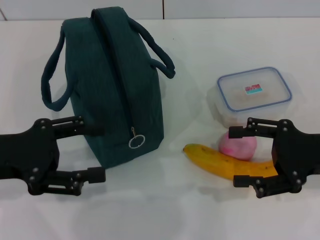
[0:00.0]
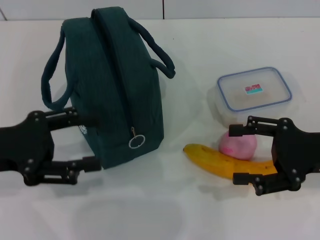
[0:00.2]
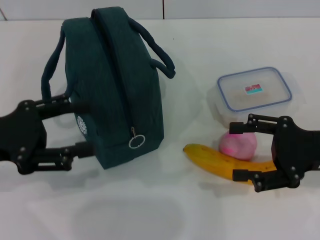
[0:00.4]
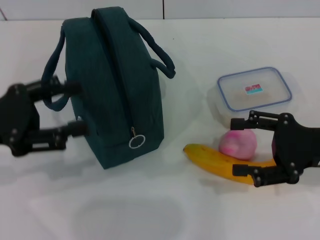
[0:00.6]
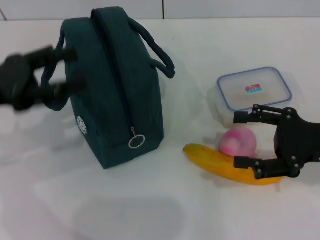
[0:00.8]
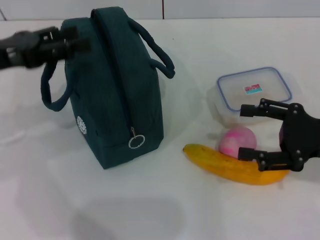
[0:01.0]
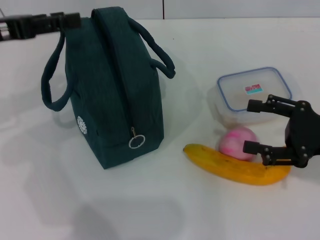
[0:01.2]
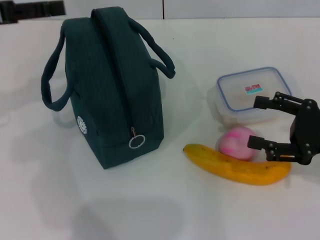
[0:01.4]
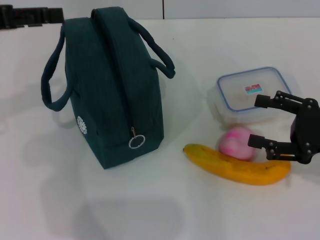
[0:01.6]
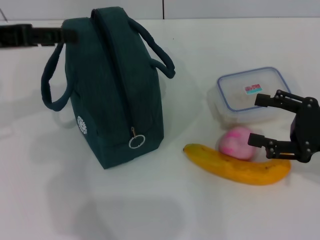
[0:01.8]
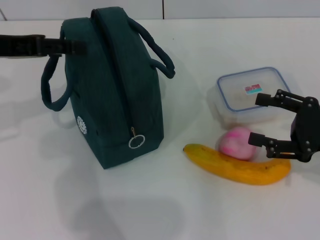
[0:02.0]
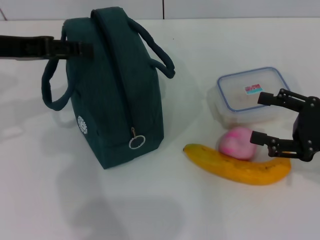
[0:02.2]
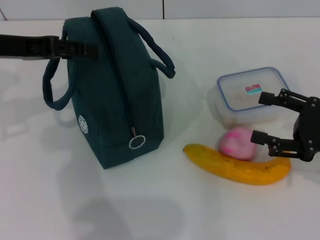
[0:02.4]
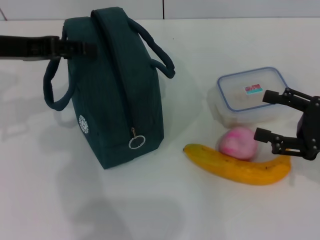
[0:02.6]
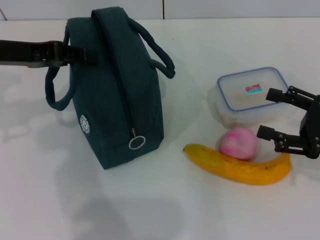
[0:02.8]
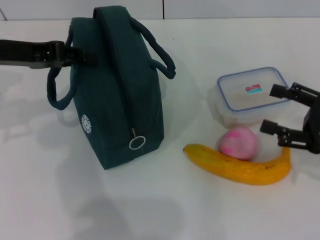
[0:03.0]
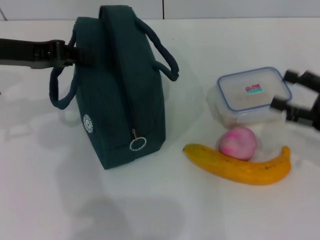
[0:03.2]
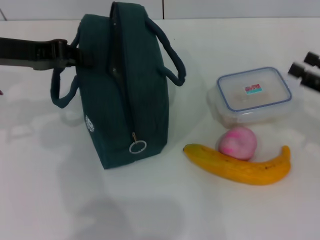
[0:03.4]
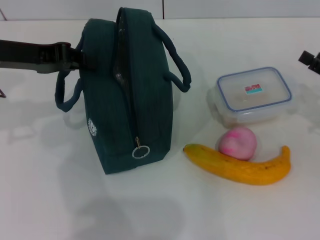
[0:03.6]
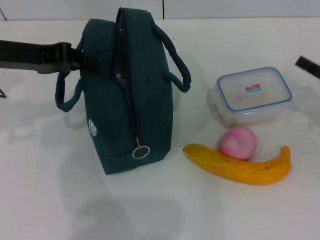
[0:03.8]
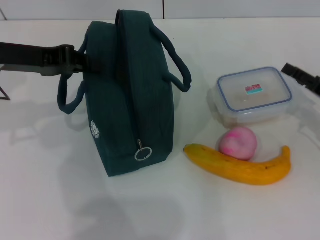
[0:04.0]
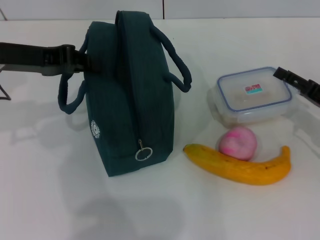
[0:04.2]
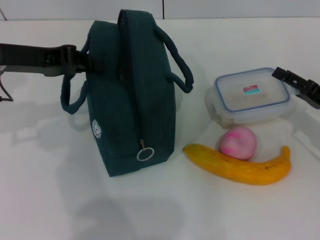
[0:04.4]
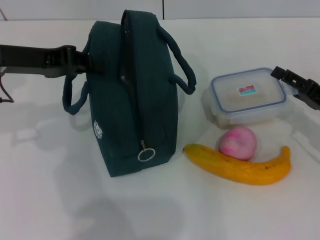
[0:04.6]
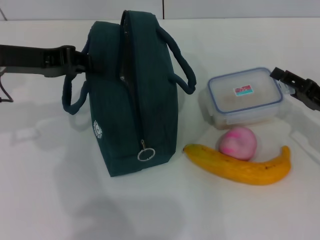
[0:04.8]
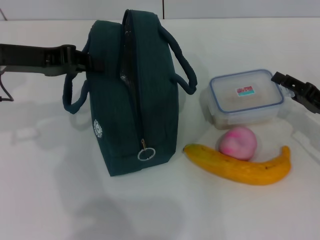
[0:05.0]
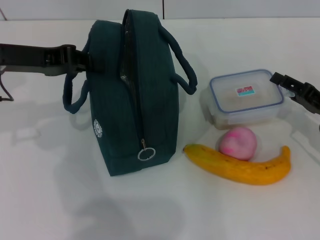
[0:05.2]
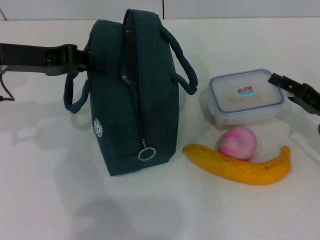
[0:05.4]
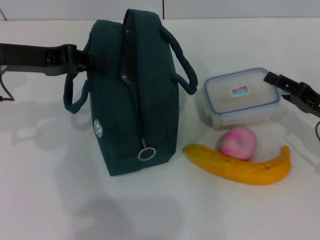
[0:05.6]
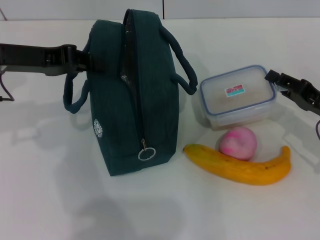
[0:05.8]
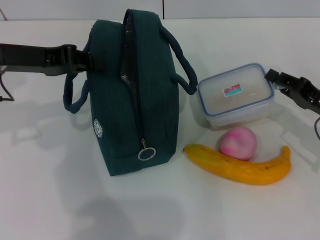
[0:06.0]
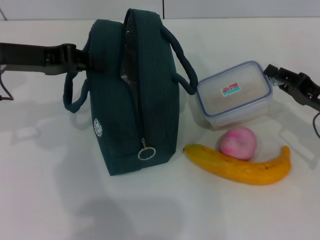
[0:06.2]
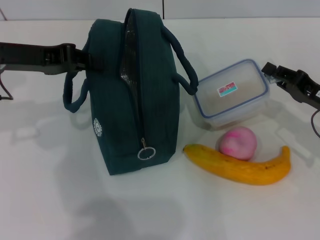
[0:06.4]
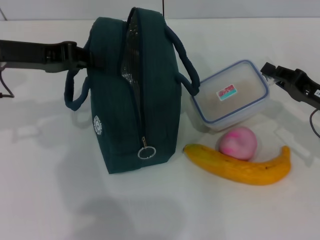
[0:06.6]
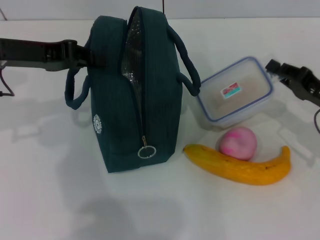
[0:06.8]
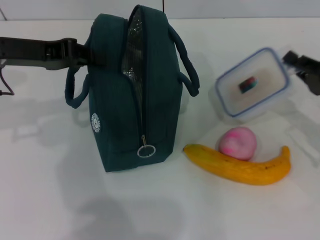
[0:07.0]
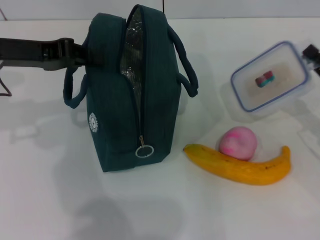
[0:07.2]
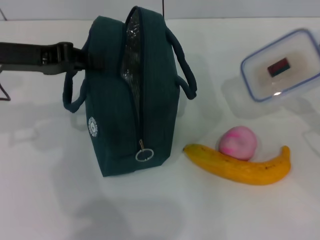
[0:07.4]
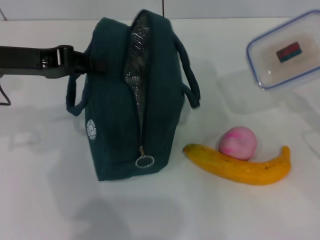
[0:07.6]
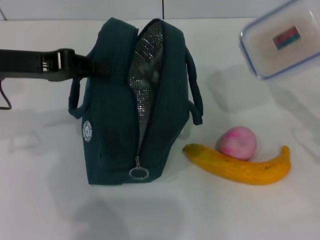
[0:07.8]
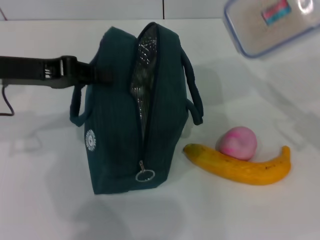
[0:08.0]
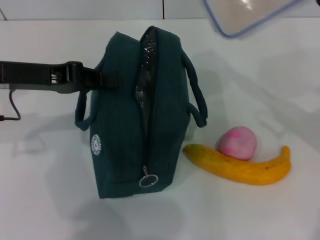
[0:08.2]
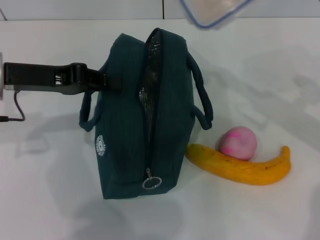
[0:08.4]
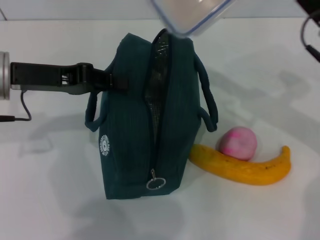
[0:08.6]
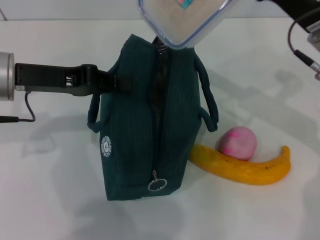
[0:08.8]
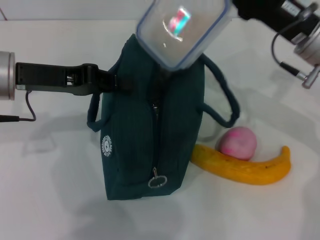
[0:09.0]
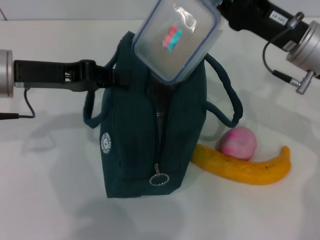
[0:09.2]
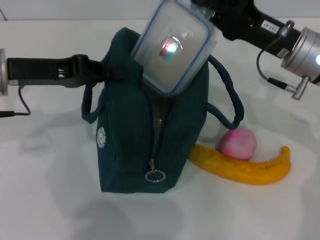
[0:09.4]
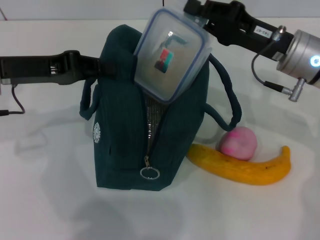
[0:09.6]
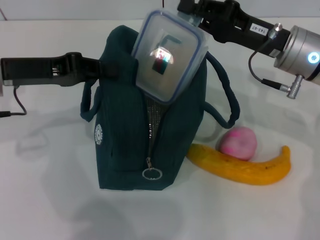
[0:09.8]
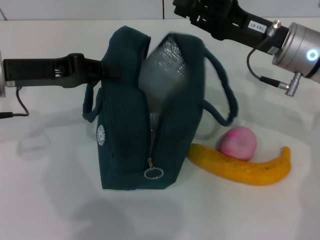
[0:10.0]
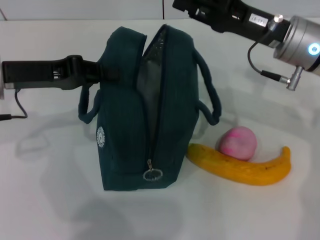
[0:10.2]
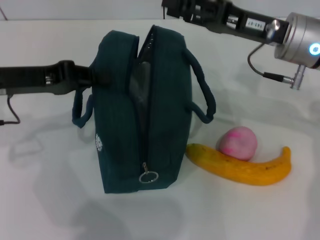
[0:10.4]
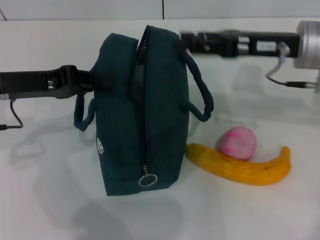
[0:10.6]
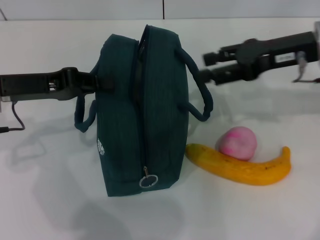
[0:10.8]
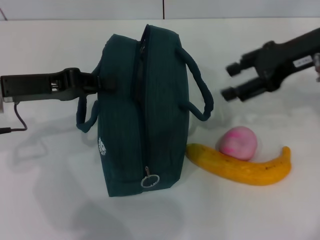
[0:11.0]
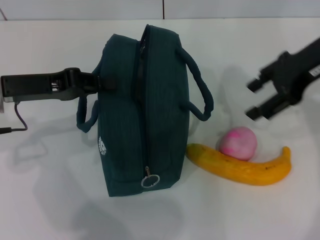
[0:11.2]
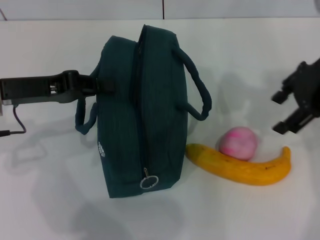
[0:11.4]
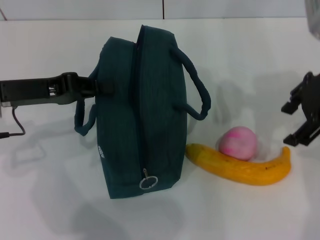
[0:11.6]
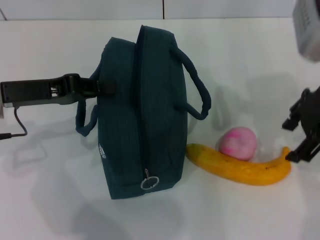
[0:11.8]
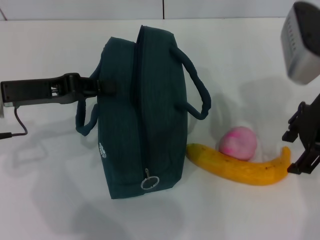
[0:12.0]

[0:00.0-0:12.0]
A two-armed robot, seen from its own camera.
Step, 0:00.0 to 0:03.2: Hold the lunch bag with your left hand.
Step, 0:03.6 to 0:06.4: Pick up the lunch box with your right hand.
Step, 0:06.6 to 0:10.2: Place the lunch box into the lunch bag with your right hand.
0:00.0 to 0:01.6: The left gripper heads upward and forward, covering approximately 15 cm.
0:01.6 to 0:03.0: The left gripper ends up some 5 cm from where it was.
0:03.0 to 0:04.4: The left gripper closes its fingers; the right gripper shifts about 5 cm downward and forward.
0:04.4 to 0:06.0: The right gripper closes.
0:06.0 to 0:07.6: The right gripper shifts by about 5 cm.
0:07.6 to 0:09.0: The right gripper travels to the left, forward and upward by approximately 15 cm.
0:09.0 to 0:10.4: The right gripper opens up.
0:10.4 to 0:12.0: The right gripper changes place by approximately 5 cm, and opens.

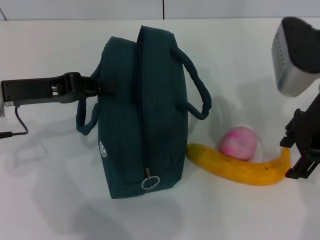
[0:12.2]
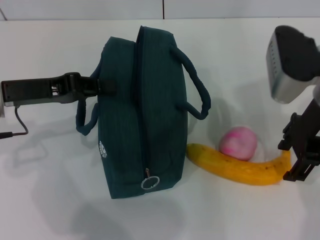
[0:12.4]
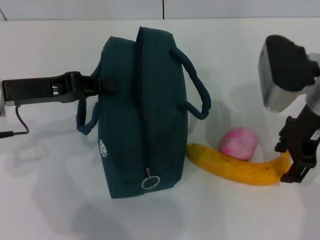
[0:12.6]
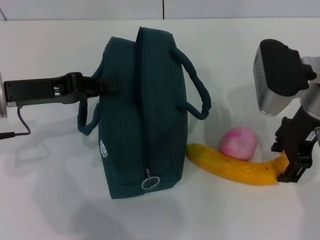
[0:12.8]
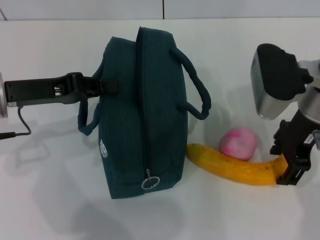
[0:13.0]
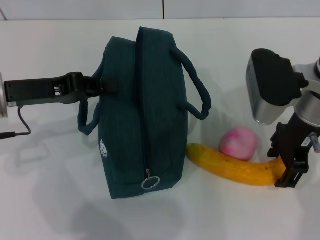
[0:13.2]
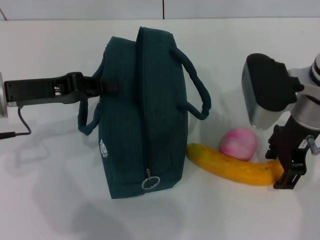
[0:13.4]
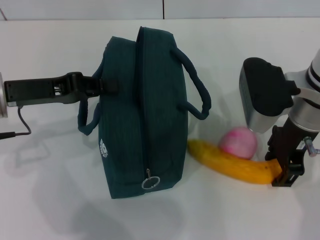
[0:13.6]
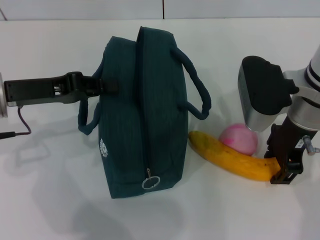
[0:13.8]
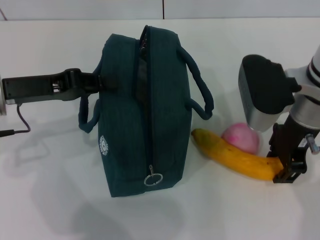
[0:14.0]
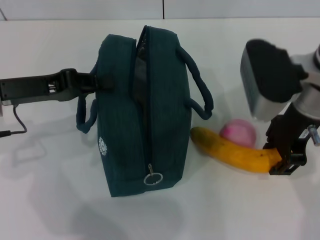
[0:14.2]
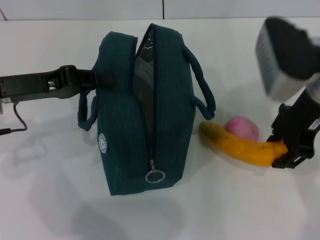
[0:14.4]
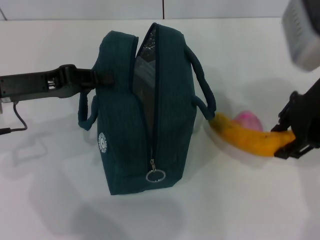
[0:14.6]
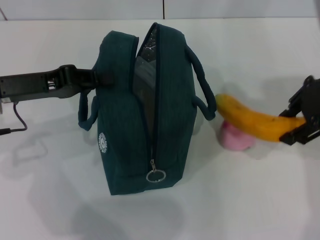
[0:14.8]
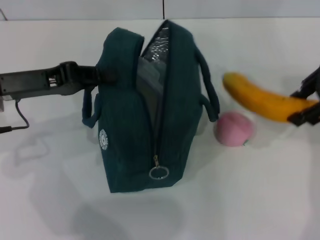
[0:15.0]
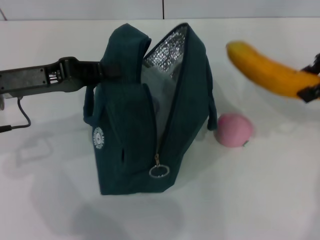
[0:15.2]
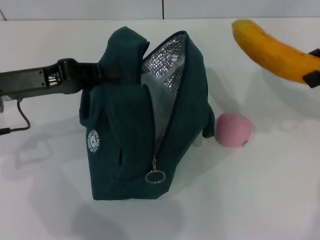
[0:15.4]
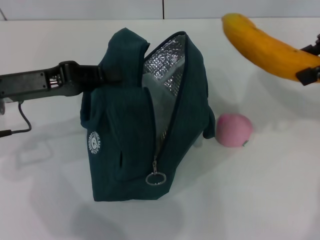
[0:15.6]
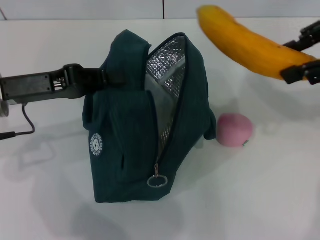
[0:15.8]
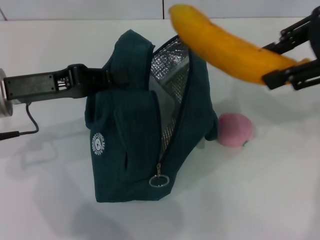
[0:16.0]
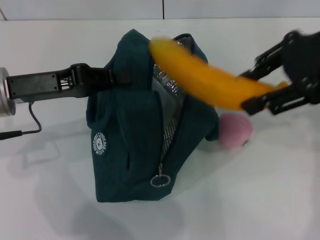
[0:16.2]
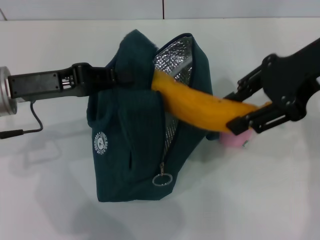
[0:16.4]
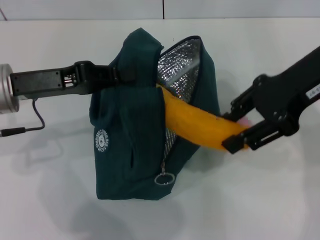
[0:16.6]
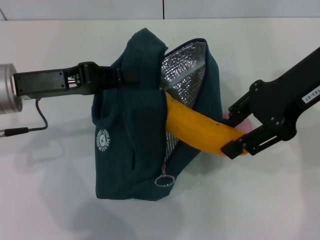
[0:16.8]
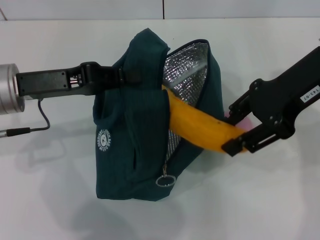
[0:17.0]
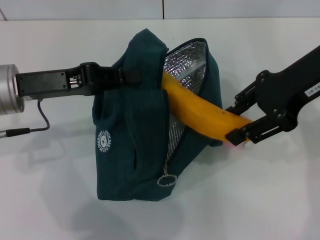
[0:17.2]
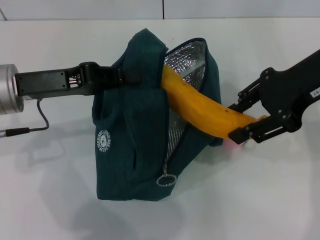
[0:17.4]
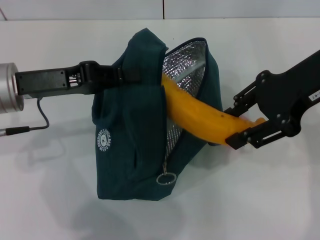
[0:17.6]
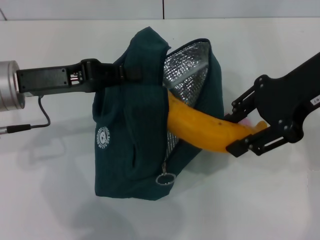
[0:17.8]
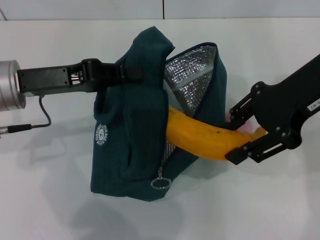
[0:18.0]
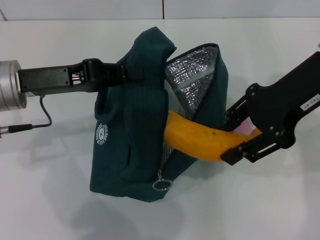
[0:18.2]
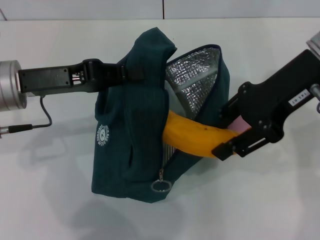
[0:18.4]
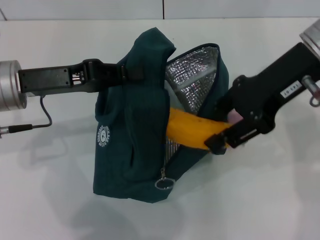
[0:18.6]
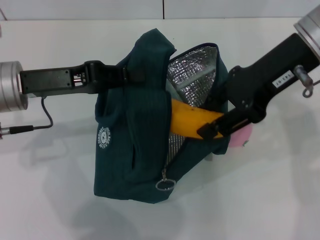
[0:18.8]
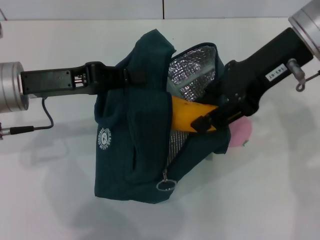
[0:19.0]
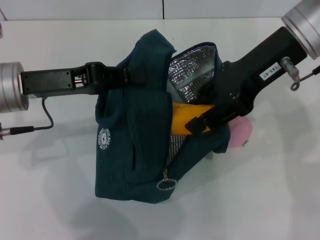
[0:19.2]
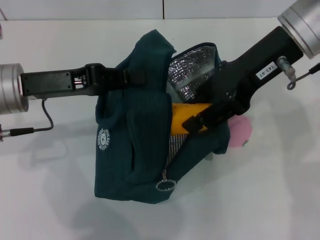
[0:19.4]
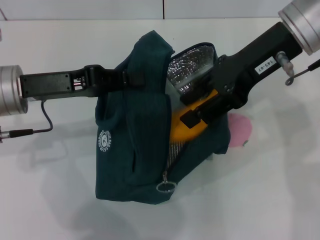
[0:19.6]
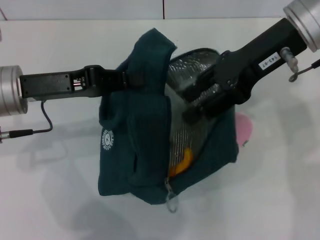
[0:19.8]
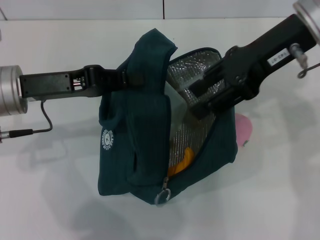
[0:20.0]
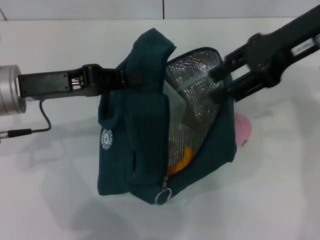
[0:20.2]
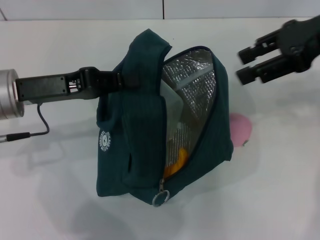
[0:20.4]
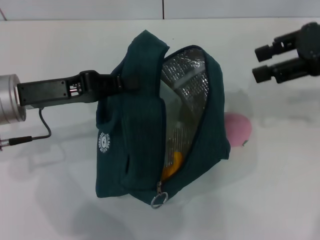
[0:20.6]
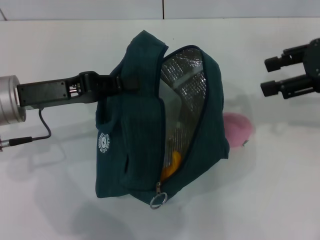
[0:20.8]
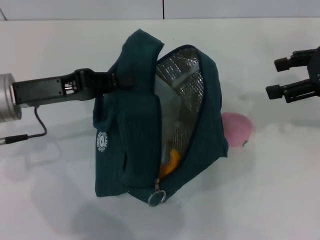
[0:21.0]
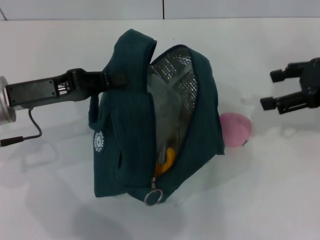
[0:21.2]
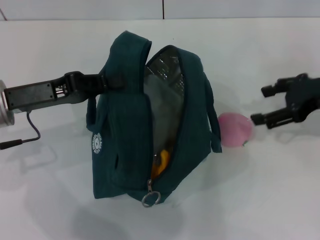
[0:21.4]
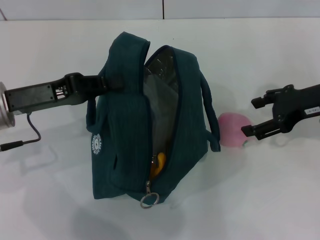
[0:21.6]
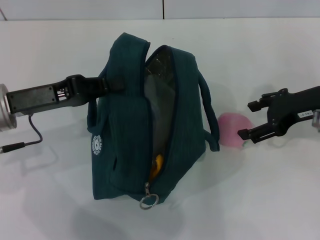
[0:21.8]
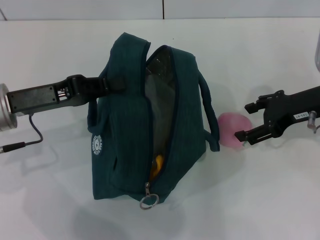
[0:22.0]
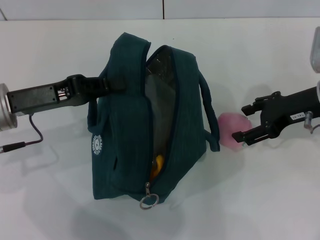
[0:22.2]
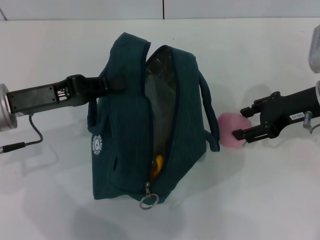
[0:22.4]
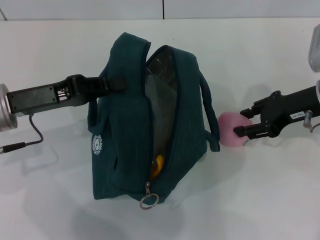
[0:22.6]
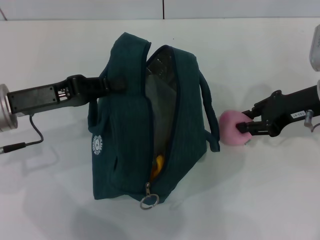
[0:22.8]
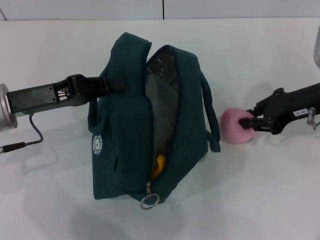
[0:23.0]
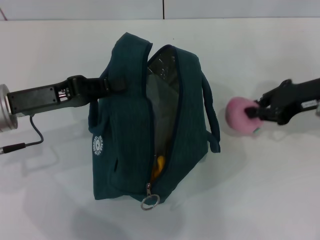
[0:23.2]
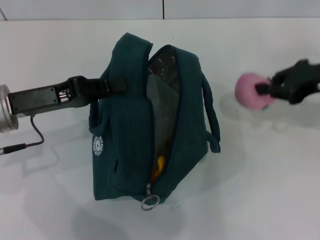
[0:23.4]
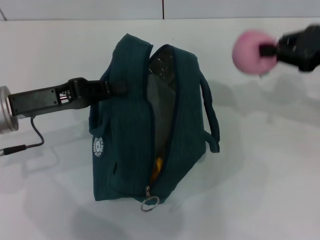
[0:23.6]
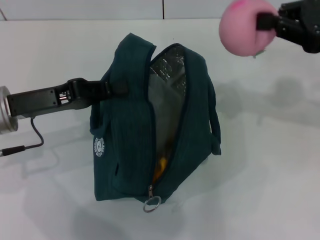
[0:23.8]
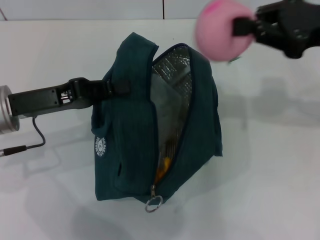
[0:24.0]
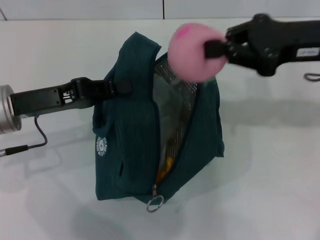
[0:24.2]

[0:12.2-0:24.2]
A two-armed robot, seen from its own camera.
Step, 0:14.0 to 0:20.0: Put the banana into the lunch bag with your right hand.
Step, 0:20.2 to 0:22.8: Grab the peach with your right hand.
0:12.2 to 0:13.8: The right gripper shifts by approximately 5 cm.
0:13.8 to 0:15.2: The right gripper shifts roughly 20 cm upward and to the right.
0:15.2 to 0:16.6: The right gripper heads to the left, covering some 5 cm.
0:16.6 to 0:18.2: The grippers stay close to where they were, moving slightly.
0:19.8 to 0:21.2: The right gripper goes some 15 cm to the right and downward.
0:21.2 to 0:22.6: The right gripper moves downward and to the left, roughly 10 cm.
0:22.6 to 0:24.2: The right gripper heads upward, covering some 10 cm, and closes up.
